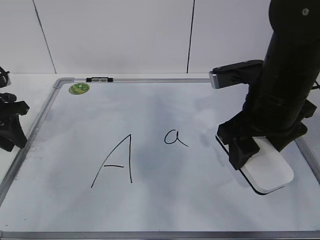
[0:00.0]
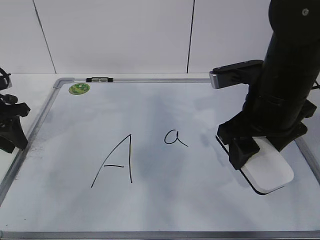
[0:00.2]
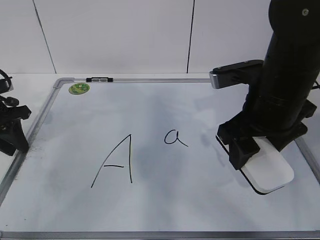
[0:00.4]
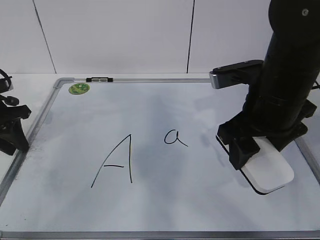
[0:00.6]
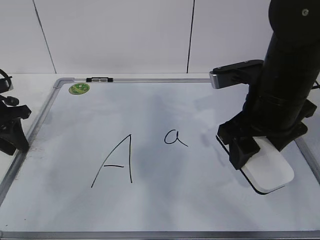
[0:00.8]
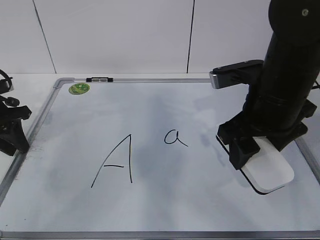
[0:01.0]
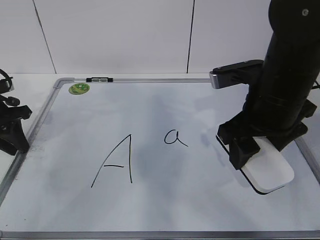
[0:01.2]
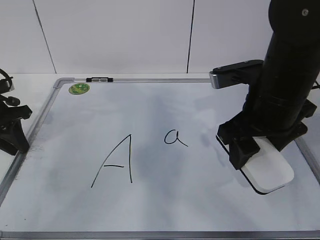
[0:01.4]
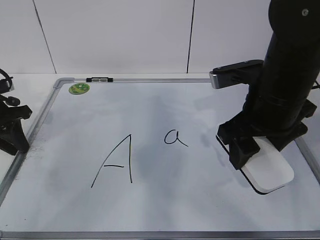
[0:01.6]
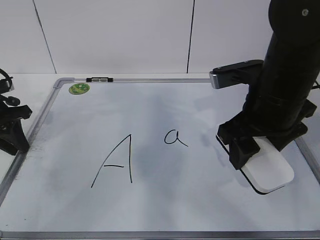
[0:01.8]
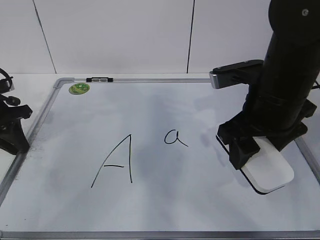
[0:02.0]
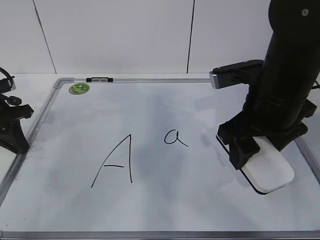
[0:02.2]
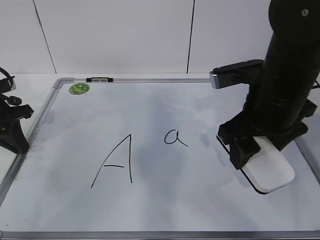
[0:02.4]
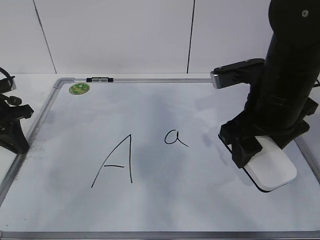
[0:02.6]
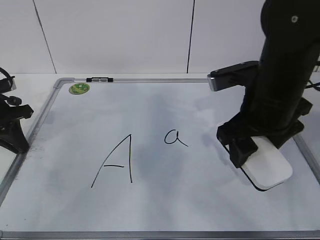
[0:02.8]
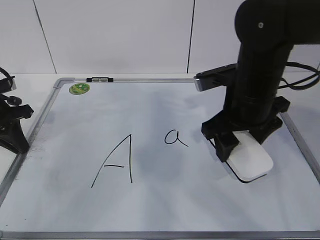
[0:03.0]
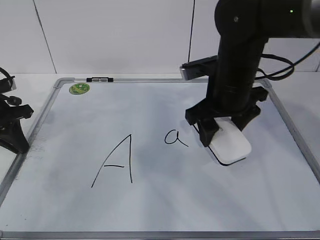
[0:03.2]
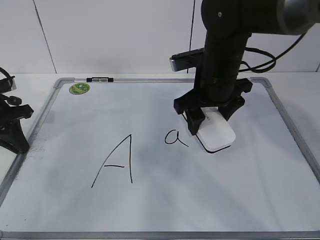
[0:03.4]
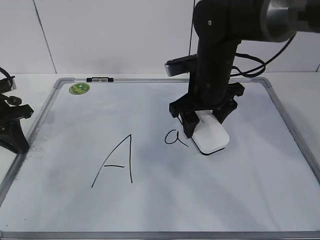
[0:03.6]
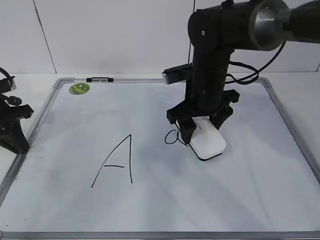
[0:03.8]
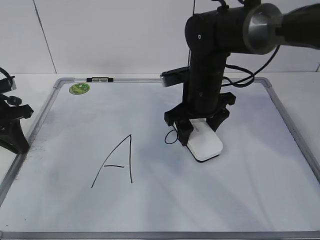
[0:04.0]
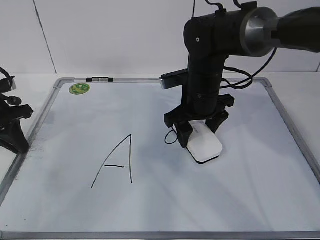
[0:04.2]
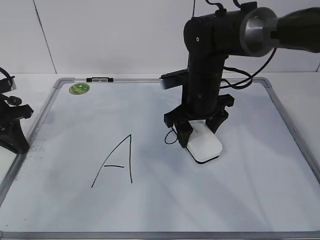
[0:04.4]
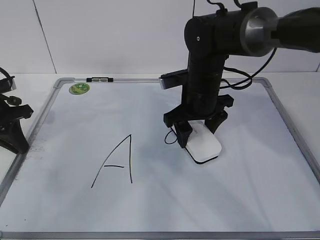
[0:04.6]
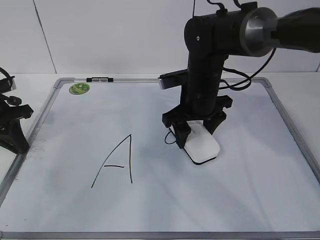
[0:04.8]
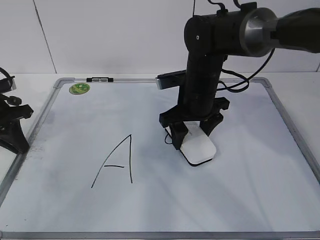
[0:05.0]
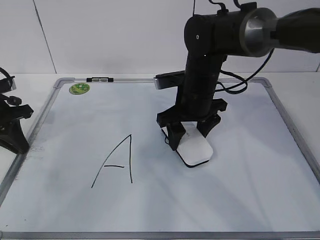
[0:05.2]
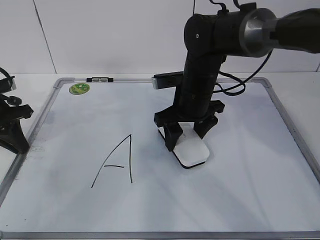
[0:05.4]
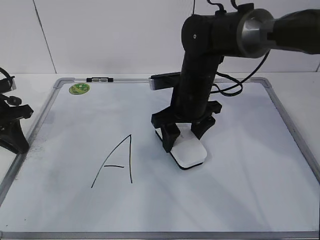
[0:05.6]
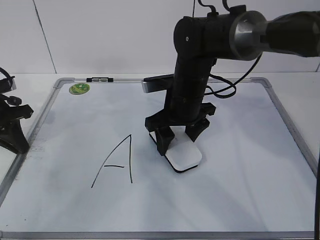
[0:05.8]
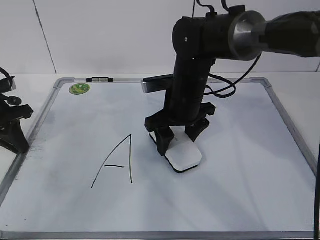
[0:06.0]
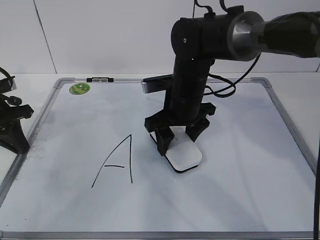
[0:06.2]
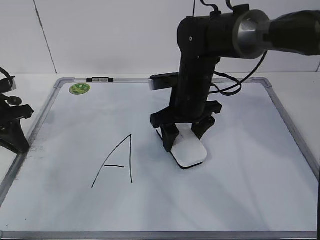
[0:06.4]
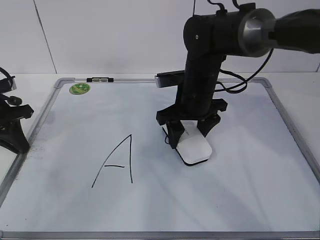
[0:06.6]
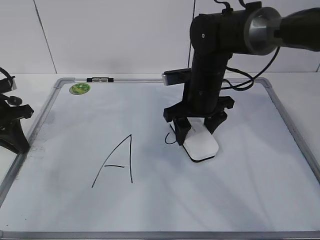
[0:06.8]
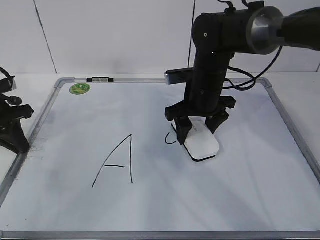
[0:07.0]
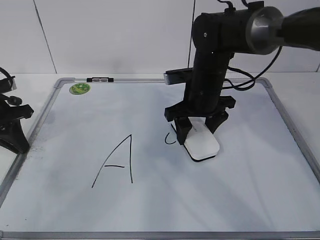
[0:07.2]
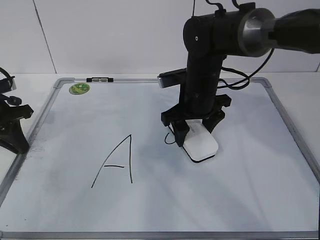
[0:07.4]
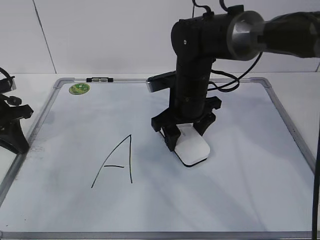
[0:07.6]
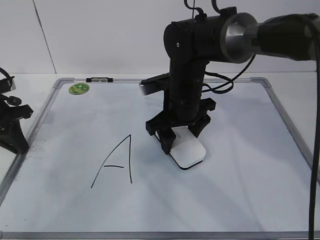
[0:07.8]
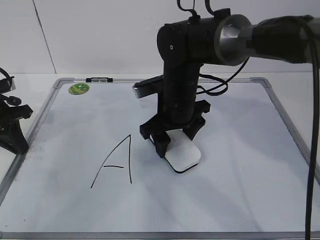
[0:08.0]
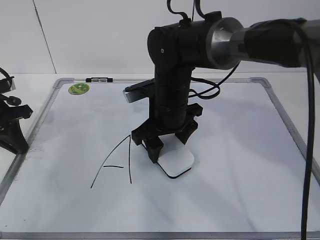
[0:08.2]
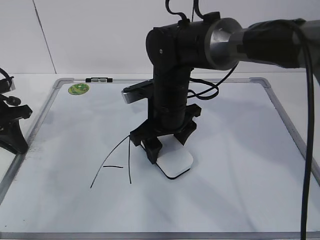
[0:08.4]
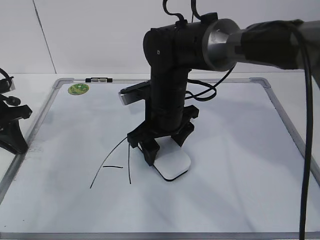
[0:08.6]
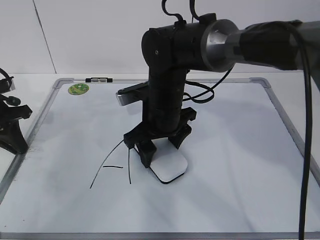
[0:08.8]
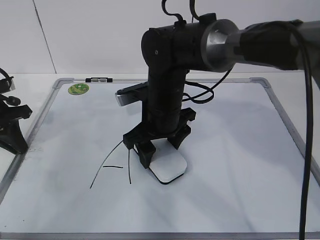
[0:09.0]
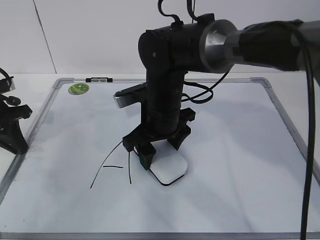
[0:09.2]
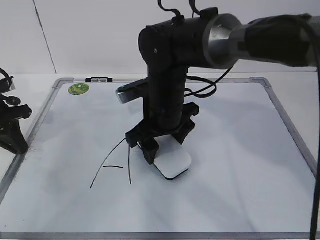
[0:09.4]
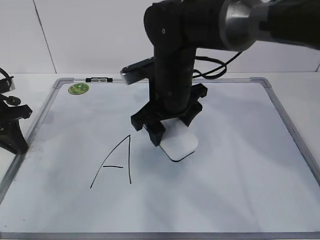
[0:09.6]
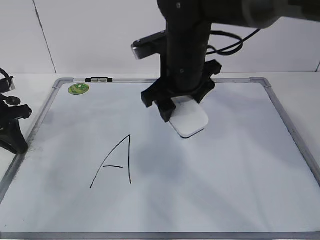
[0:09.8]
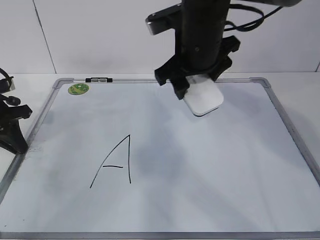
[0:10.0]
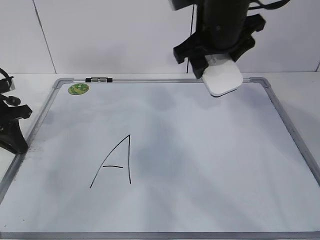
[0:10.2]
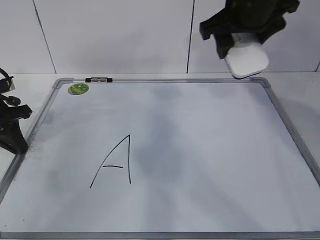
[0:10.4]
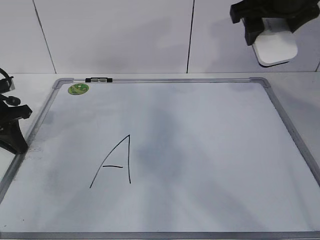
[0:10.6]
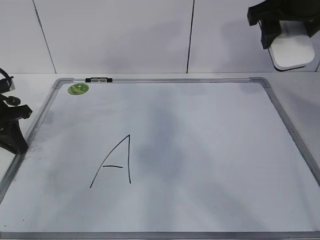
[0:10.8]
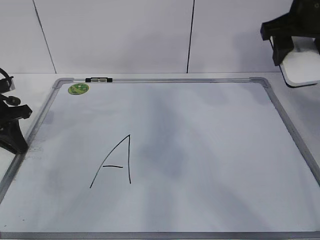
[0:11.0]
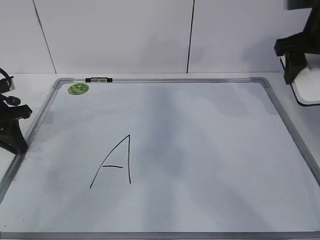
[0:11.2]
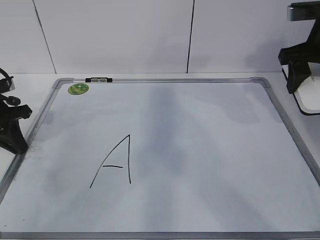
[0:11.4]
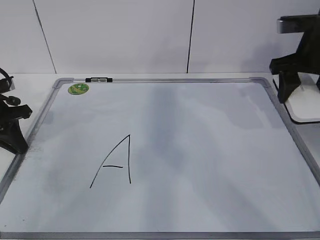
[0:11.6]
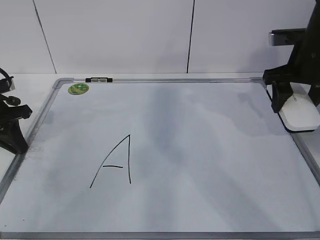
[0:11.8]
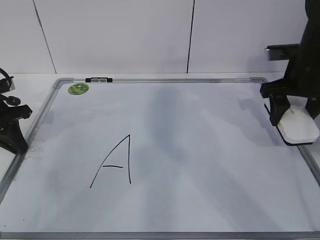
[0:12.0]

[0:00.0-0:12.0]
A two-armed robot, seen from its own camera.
Task of the whole recording: pick up the eraser on the blackboard and erase the letter "a".
Step, 0:00.0 to 0:05.4: Erase the letter a with your right hand.
Step, 0:05.6 to 0:09.8: Put down the eraser with your right hand.
0:00.0 to 0:01.6: Both grippers stay about where they are.
0:01.6 to 0:03.0: The left gripper closes its fingers.
0:03.0 to 0:04.4: The right gripper shifts some 10 cm forward and downward.
0:04.4 to 0:07.6: The grippers move only a little.
0:07.6 to 0:09.0: The right gripper moves about 5 cm.
0:09.0 to 0:10.4: The right gripper is displaced upward and to the right by some 20 cm.
0:10.4 to 0:12.0: The right gripper travels to the right and downward by some 15 cm.

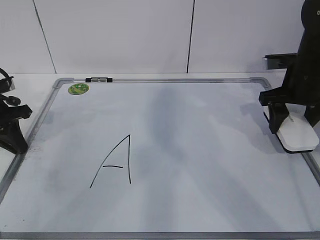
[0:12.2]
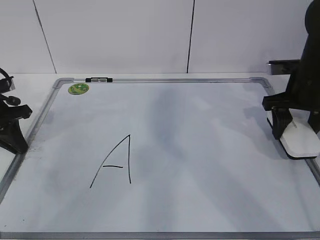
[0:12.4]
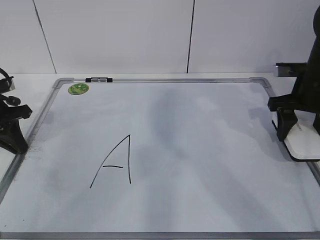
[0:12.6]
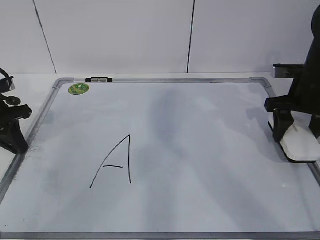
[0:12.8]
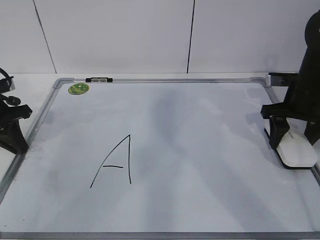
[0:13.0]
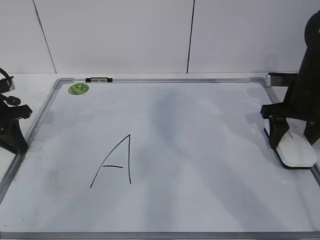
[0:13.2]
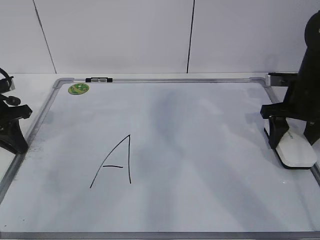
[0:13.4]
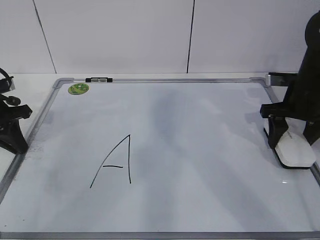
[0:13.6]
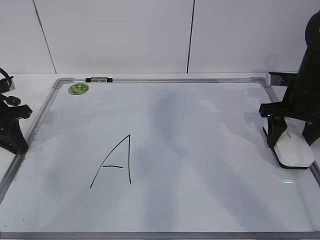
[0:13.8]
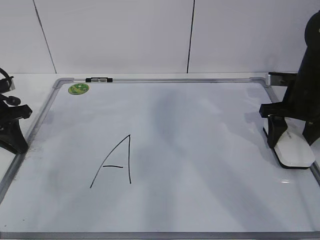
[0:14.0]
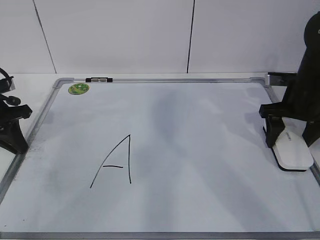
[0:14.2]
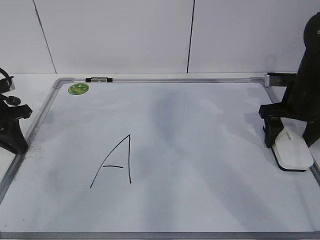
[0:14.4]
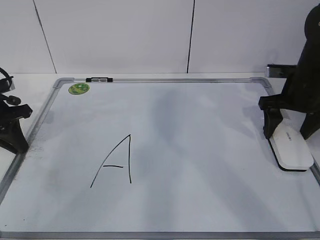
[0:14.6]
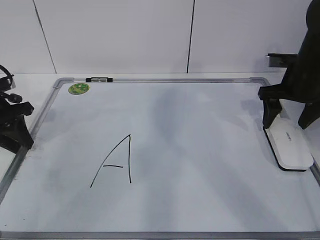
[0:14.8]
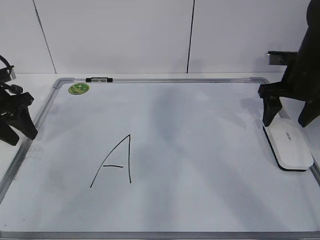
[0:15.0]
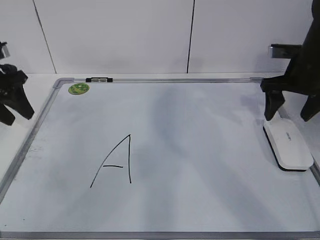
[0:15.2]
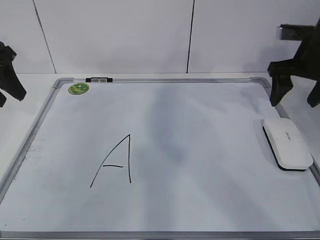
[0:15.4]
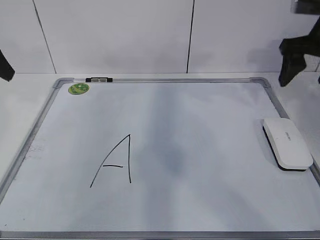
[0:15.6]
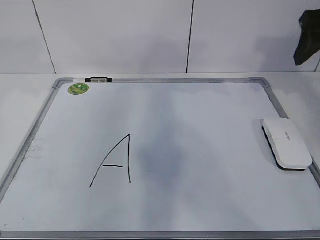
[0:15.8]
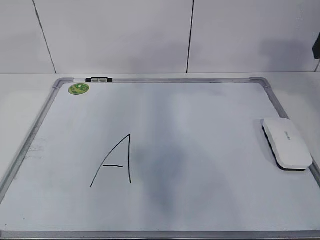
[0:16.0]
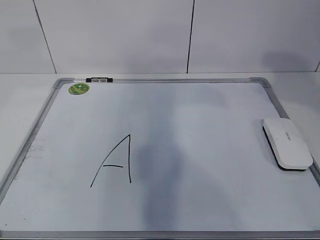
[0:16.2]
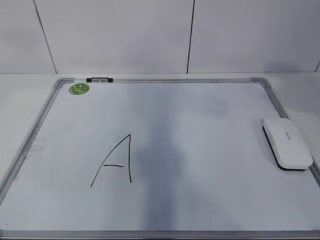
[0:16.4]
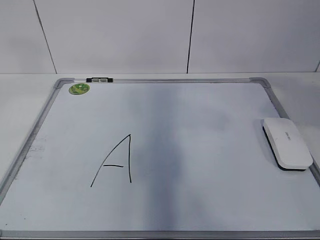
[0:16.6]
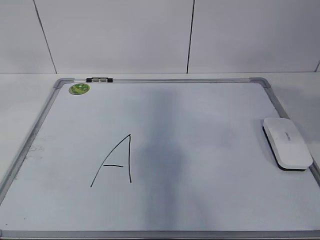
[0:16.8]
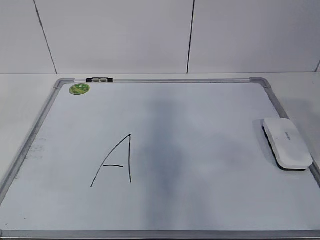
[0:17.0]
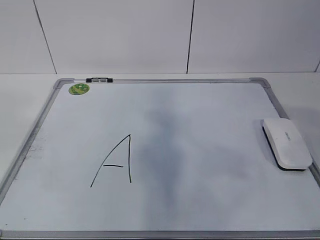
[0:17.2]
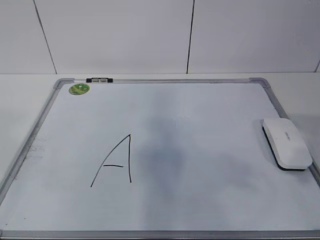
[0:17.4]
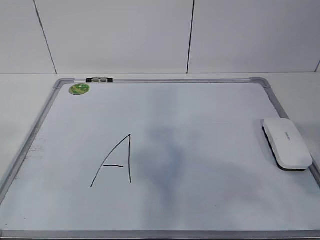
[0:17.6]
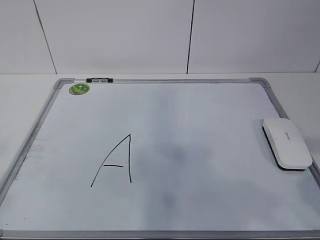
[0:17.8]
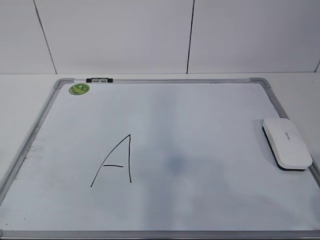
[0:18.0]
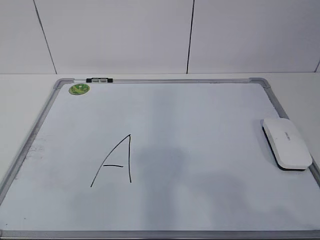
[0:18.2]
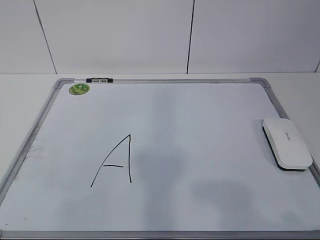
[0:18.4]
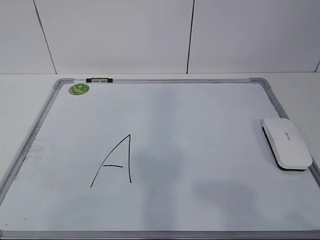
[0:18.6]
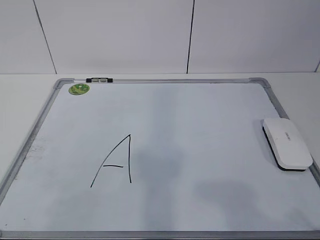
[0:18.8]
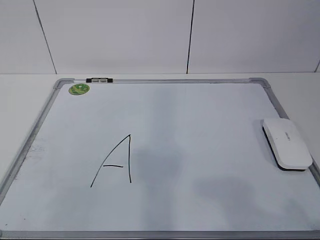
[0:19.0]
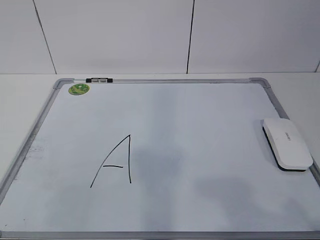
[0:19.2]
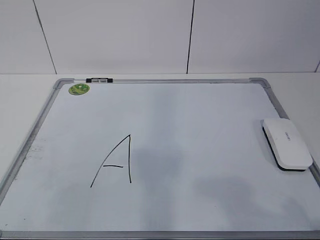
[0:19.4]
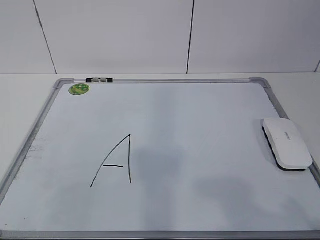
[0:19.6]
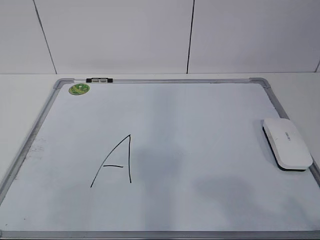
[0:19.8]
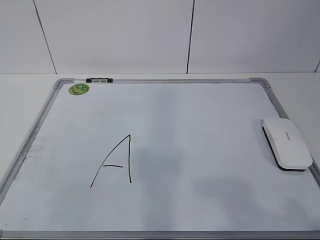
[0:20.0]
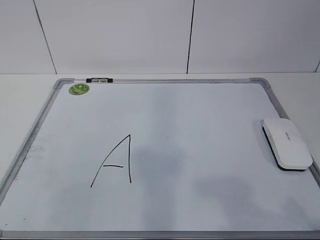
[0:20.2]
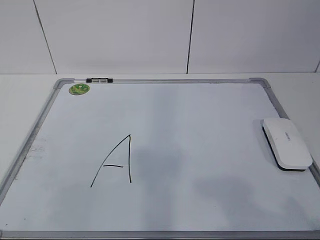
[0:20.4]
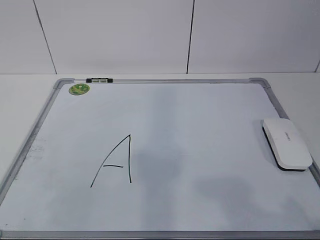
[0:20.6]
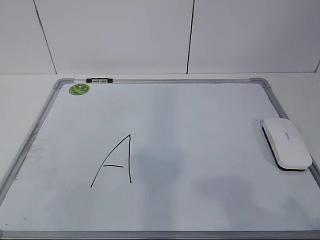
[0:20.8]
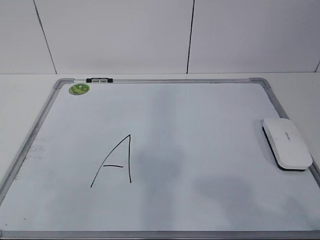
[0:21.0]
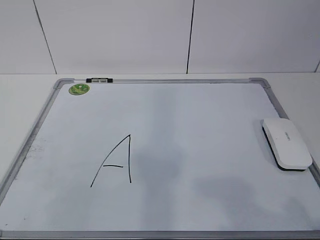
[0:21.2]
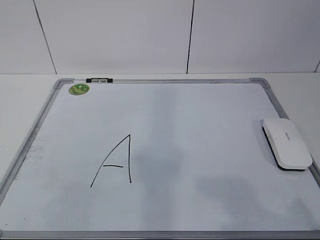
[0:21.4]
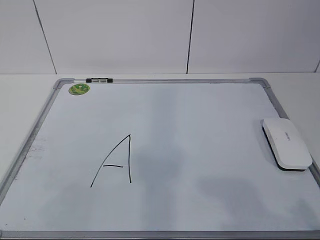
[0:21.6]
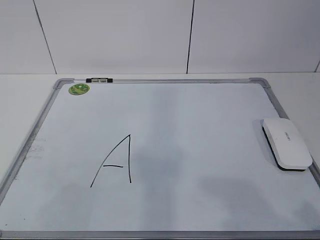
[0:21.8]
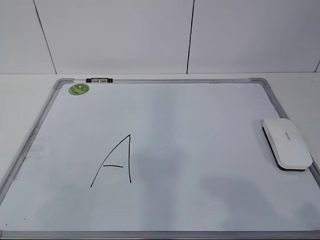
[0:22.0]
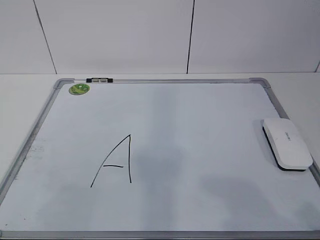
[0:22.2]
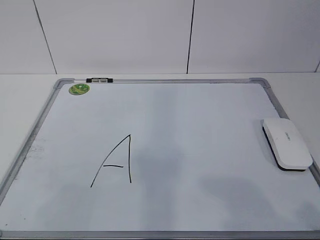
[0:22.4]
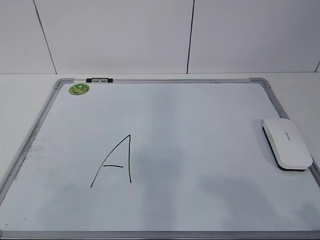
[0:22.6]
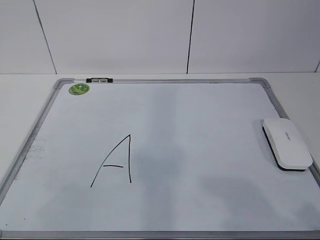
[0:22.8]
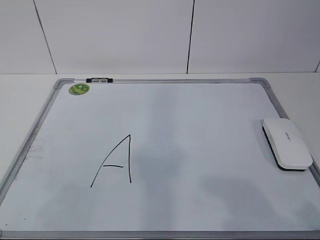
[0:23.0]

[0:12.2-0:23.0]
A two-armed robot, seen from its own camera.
Task of the whole recording: pick up the eraser on the blackboard and erase the letter "a".
0:12.2 to 0:13.8: The grippers move only a little.
0:13.8 to 0:15.2: The left gripper is displaced upward by about 5 cm, and opens its fingers. Meanwhile the right gripper opens.
0:15.2 to 0:16.8: The right gripper travels backward and upward by approximately 30 cm, and closes; the left gripper travels upward and backward by some 40 cm.
0:16.8 to 0:18.4: The left gripper is displaced downward and backward by roughly 25 cm, while the right gripper travels backward and downward by some 20 cm.
